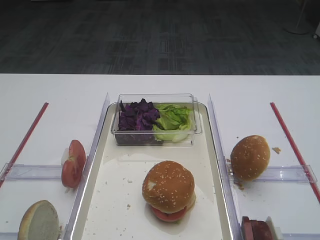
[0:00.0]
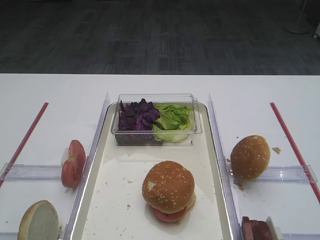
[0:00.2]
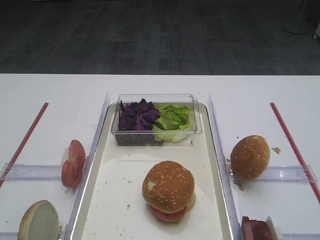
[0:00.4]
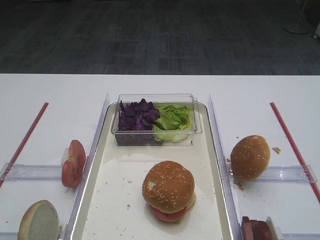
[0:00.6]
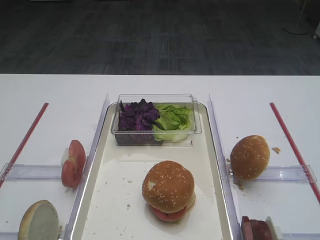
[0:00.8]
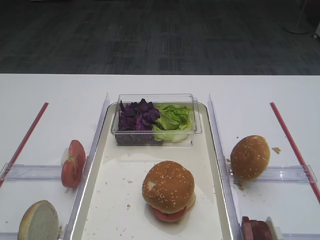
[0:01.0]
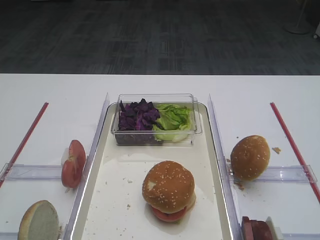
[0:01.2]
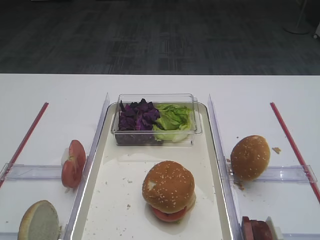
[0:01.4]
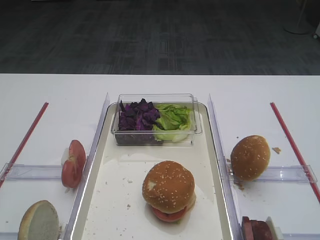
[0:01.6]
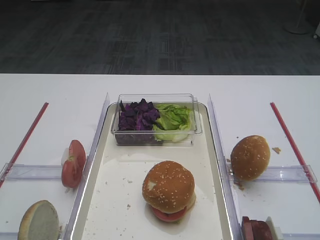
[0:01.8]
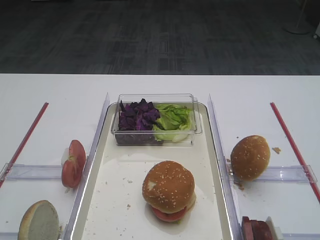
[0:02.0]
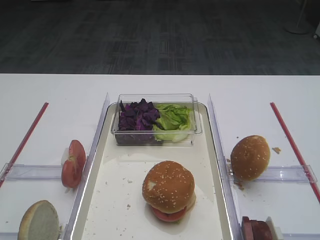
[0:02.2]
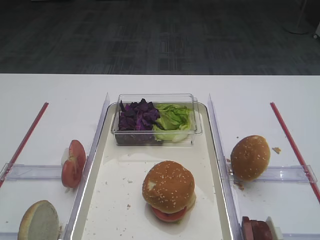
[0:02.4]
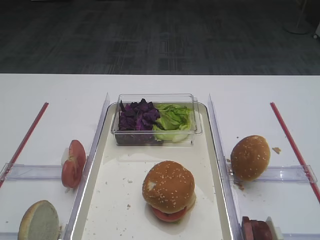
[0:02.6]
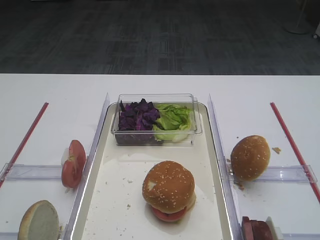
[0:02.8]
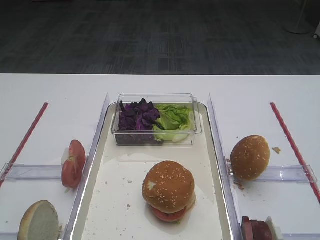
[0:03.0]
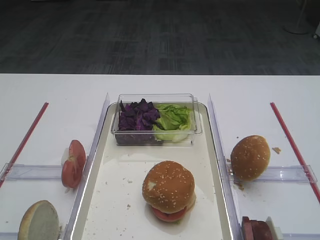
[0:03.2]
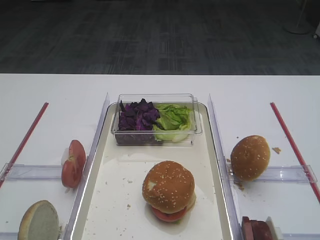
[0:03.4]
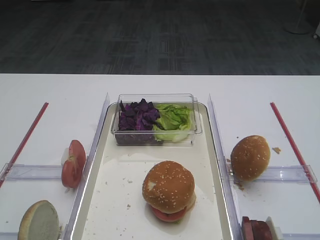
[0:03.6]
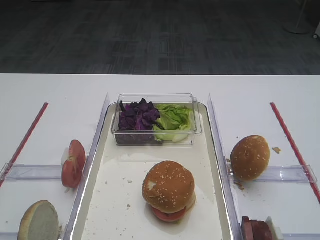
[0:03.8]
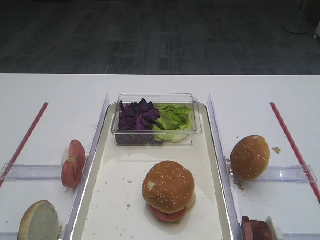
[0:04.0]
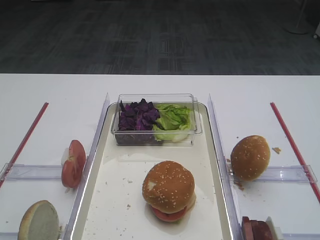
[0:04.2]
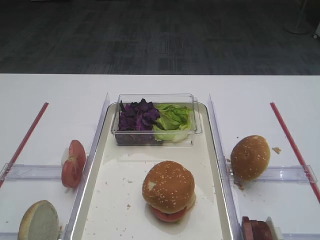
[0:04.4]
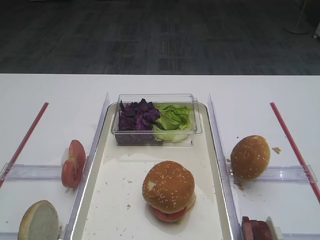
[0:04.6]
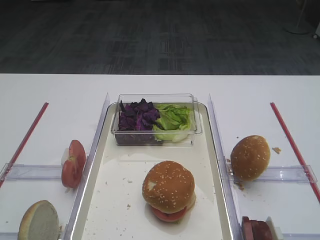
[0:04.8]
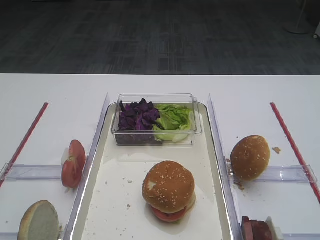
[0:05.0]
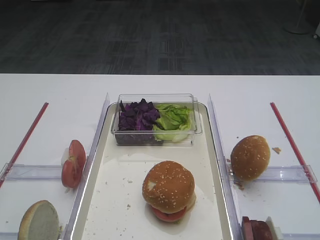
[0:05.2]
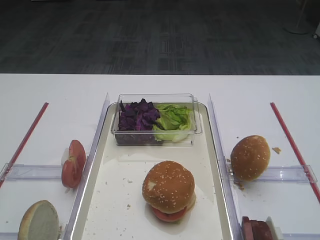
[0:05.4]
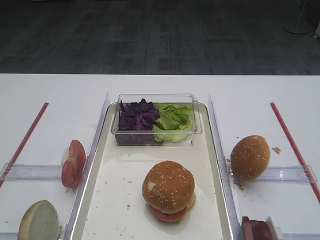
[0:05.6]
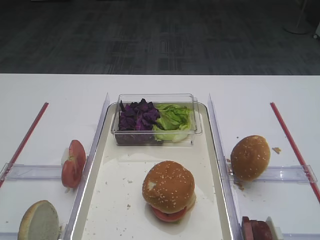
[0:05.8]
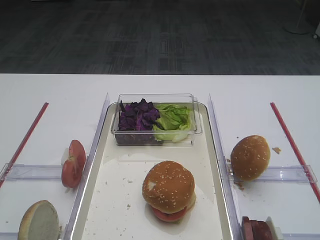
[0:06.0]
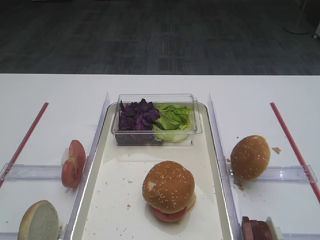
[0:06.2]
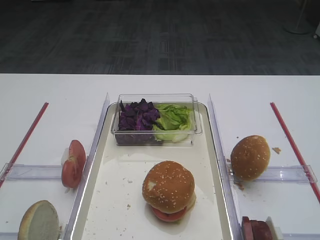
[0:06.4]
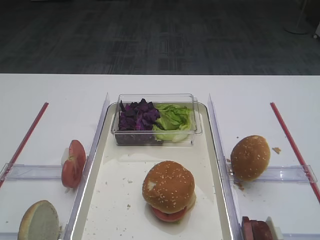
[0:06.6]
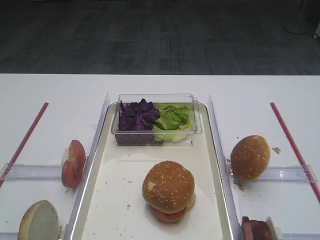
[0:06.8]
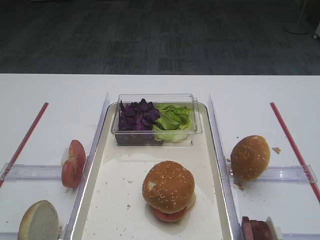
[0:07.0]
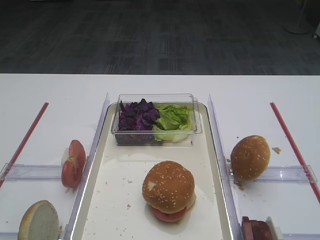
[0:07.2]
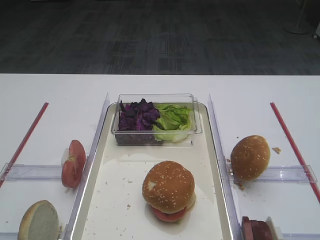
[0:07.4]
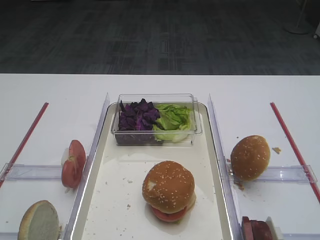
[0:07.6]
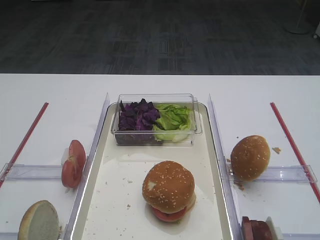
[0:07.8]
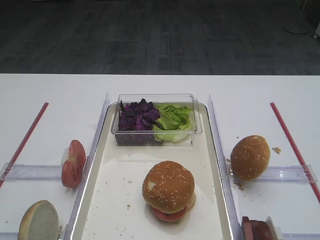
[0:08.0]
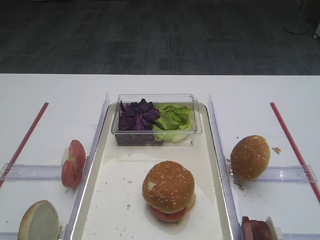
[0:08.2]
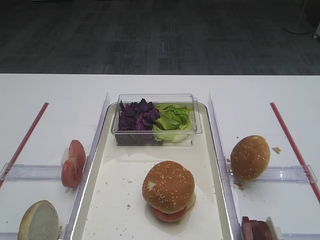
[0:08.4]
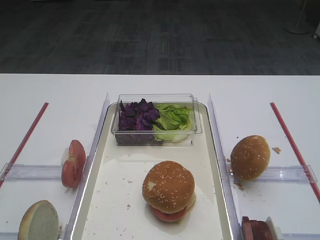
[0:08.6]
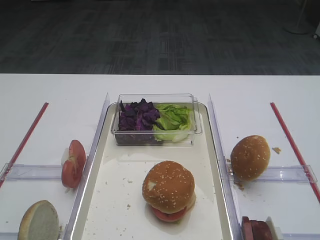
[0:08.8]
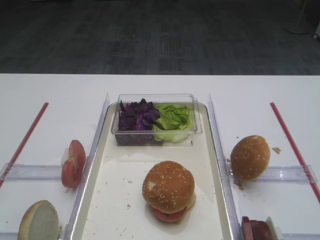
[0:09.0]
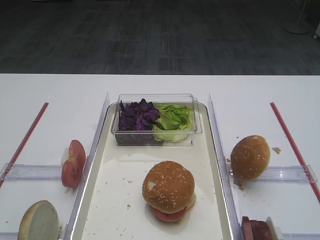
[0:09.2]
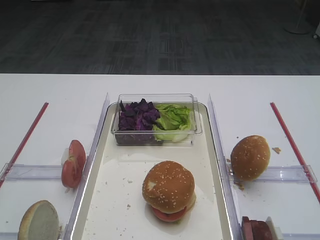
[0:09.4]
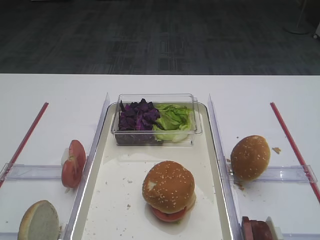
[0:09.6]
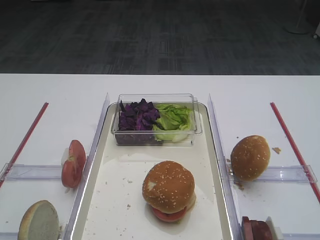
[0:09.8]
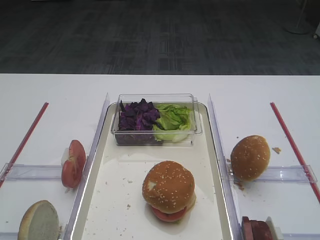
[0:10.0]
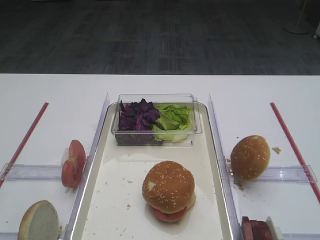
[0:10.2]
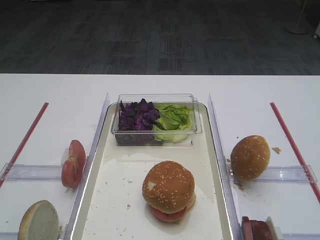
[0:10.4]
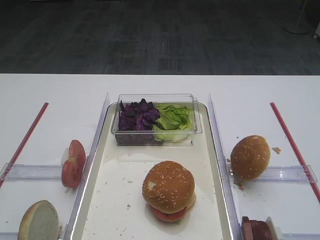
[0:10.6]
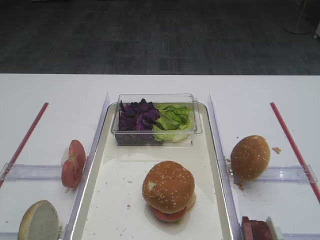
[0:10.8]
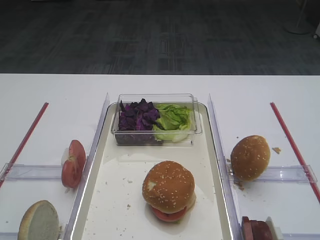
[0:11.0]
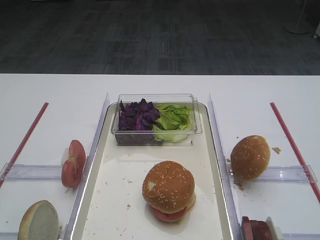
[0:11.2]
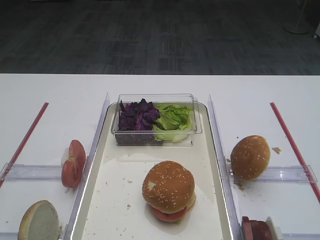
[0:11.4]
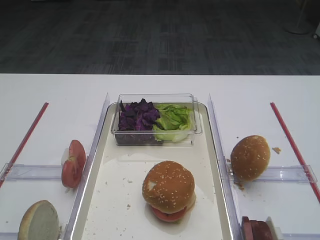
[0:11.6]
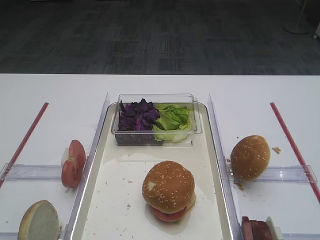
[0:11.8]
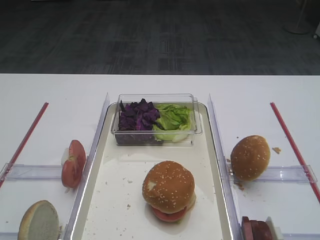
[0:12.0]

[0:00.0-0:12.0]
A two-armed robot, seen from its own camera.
0:01.6 to 0:04.4: The two grippers keep their place.
0:06.0 to 0:12.0: Both grippers stay put.

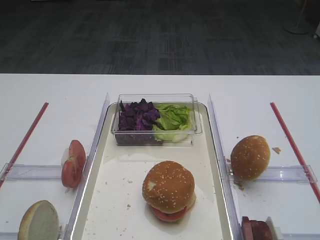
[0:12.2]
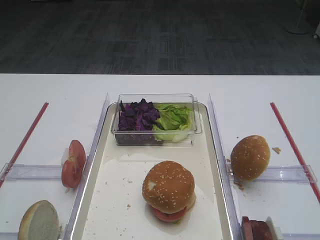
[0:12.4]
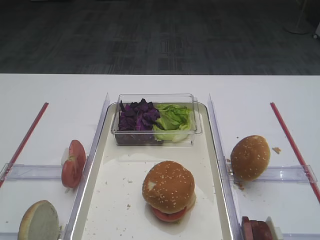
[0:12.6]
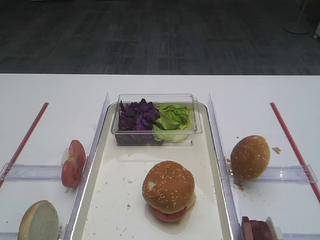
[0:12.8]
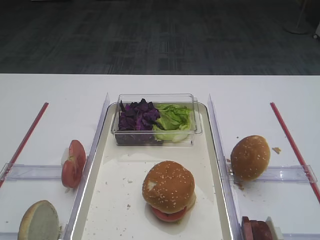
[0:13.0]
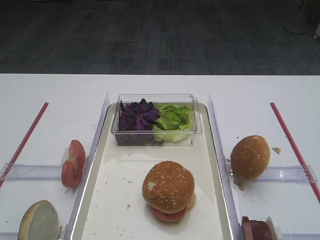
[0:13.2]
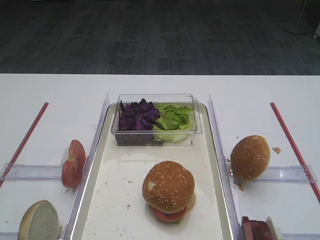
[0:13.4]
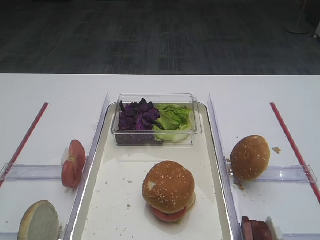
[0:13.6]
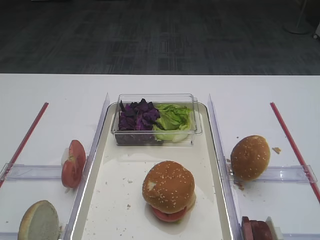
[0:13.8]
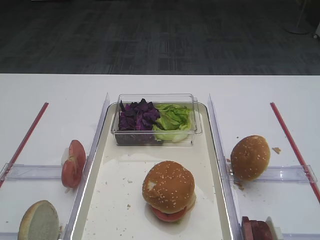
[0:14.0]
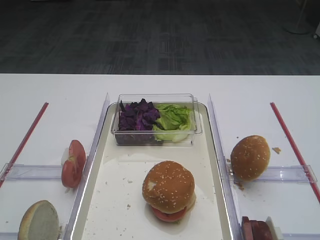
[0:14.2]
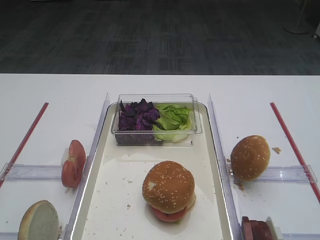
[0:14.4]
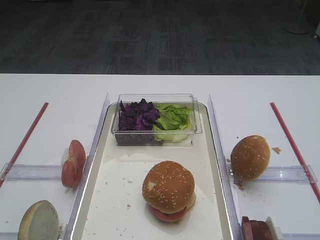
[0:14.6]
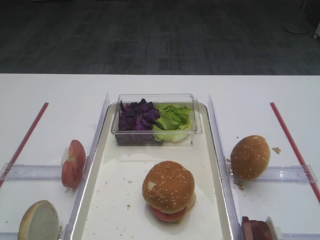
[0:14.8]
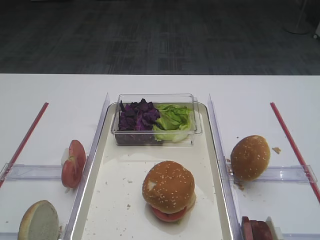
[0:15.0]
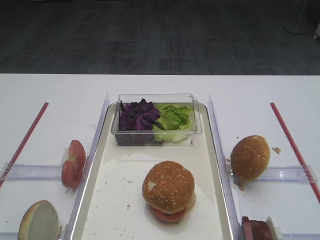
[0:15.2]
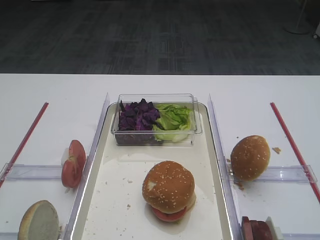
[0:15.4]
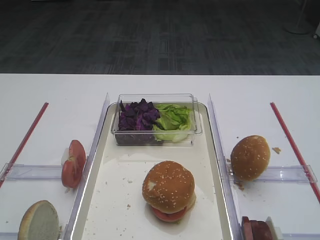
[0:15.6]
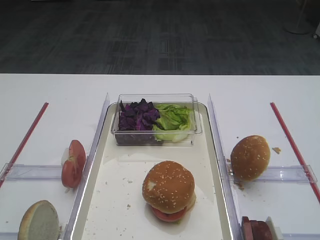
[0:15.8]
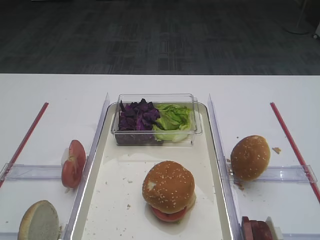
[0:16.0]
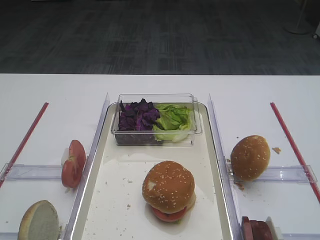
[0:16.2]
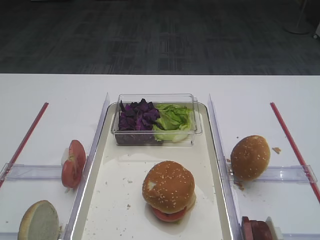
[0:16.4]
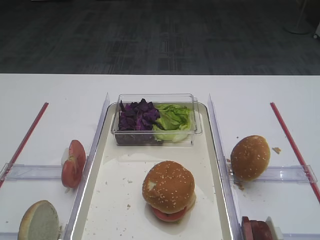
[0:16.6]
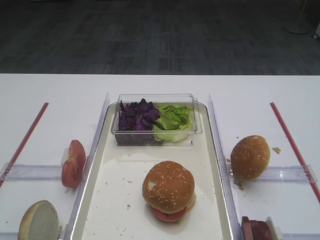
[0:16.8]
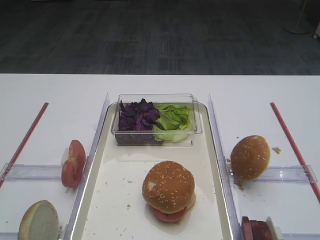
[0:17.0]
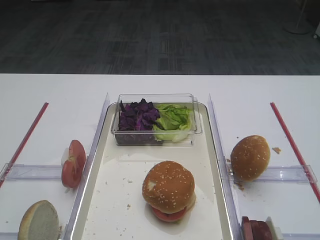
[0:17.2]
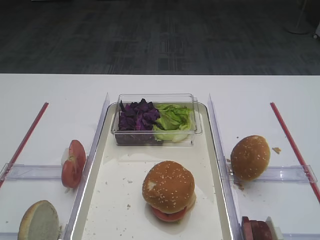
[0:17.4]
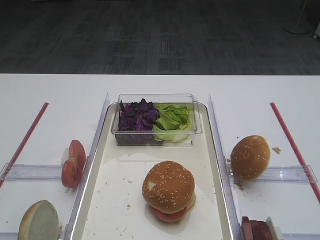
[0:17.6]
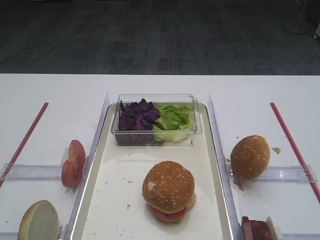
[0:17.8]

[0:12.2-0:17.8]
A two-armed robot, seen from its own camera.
0:12.2 to 0:17.8: Neither gripper changes place.

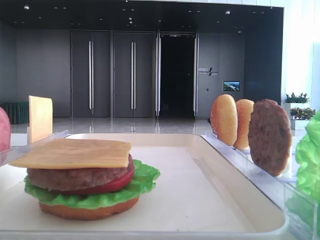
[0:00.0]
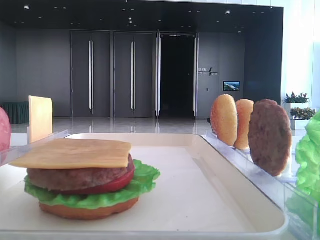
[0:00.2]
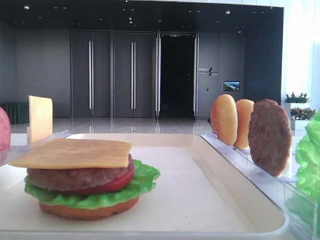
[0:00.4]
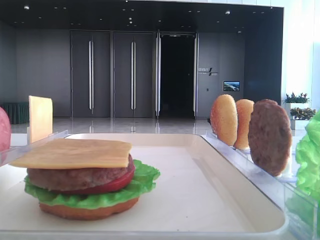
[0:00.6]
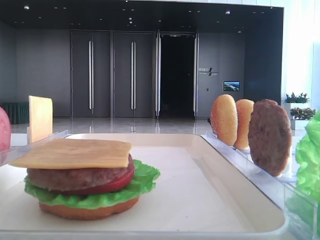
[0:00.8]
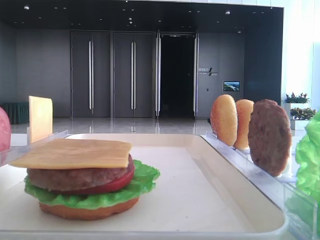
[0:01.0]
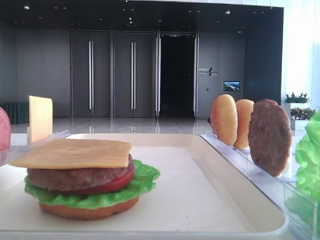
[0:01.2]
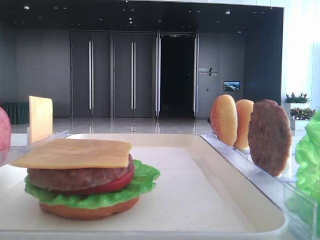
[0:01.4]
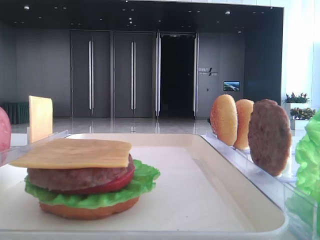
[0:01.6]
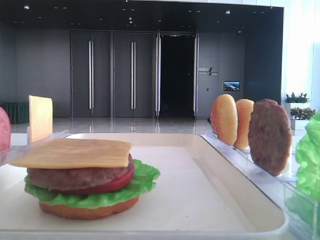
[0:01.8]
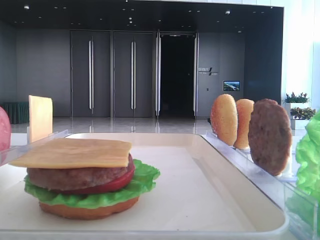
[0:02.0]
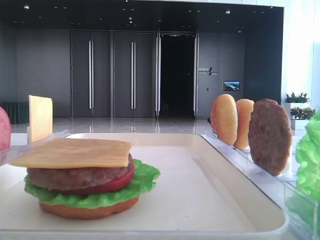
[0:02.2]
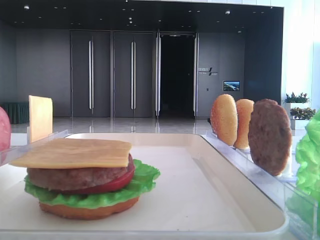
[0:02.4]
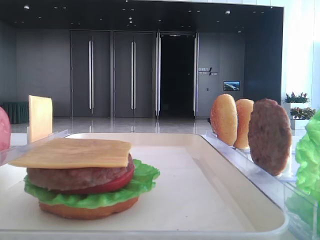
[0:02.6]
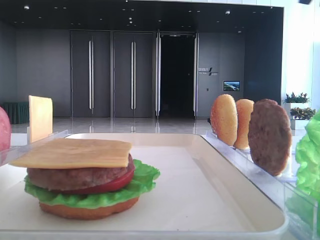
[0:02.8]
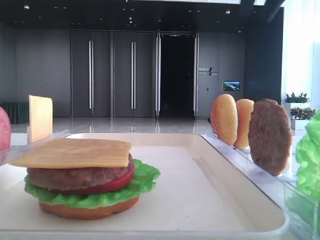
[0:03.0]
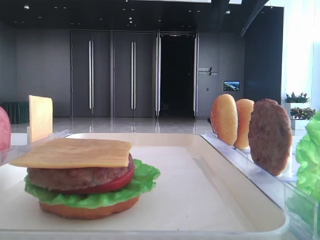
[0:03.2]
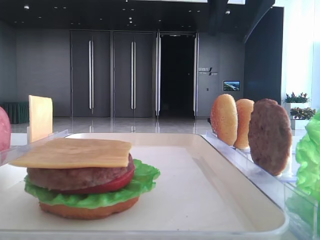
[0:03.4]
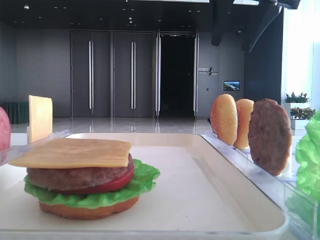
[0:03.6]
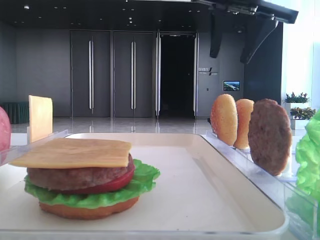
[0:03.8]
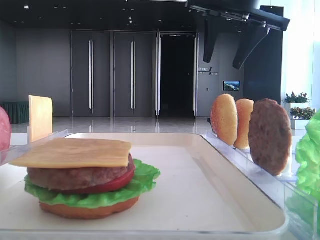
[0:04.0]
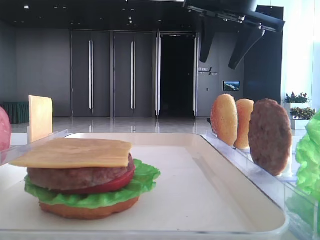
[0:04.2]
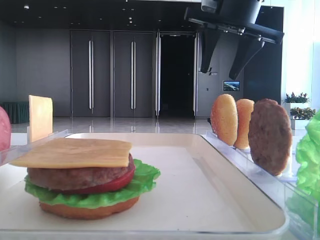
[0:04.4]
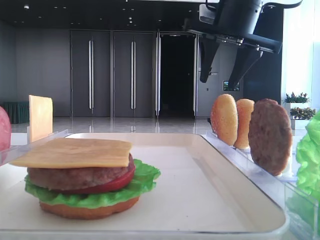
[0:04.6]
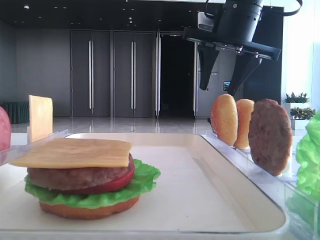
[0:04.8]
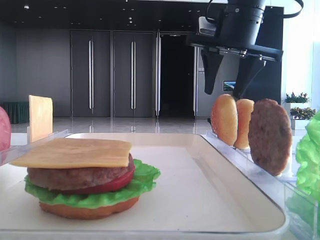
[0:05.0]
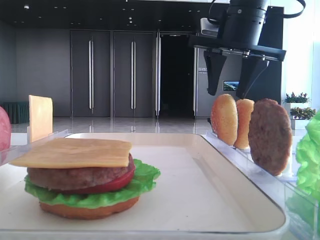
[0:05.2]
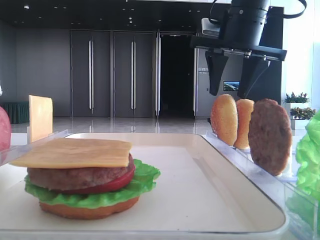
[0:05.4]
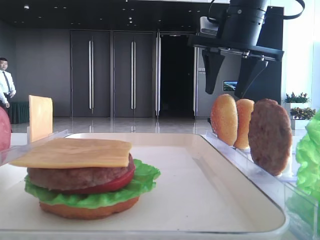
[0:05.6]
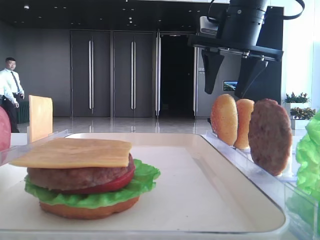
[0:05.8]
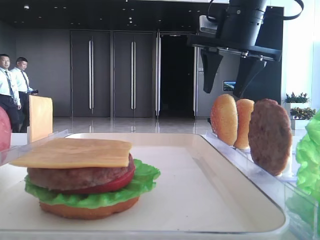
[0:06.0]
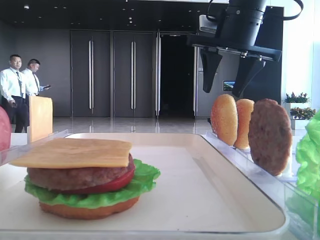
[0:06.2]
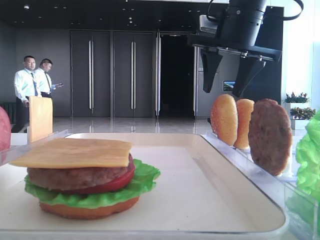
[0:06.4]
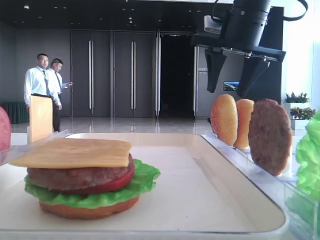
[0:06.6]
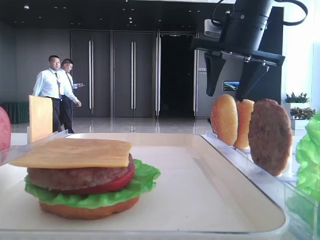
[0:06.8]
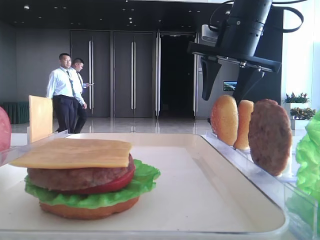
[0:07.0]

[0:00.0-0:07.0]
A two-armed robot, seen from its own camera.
0:02.8 to 0:04.2: The right gripper is displaced to the left, downward and forward by some 15 cm, and opens up.
0:04.2 to 0:05.6: The right gripper ends up roughly 5 cm from where it was.
0:05.6 to 0:07.0: The grippers make only small movements.
